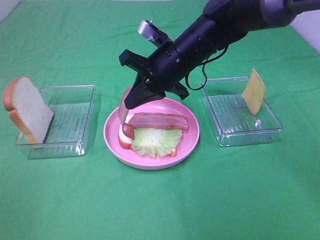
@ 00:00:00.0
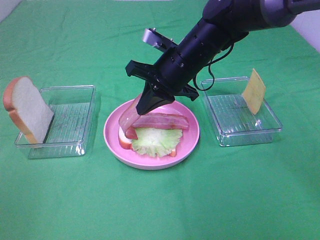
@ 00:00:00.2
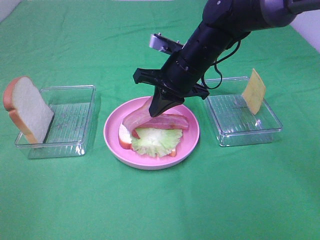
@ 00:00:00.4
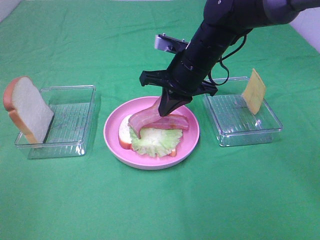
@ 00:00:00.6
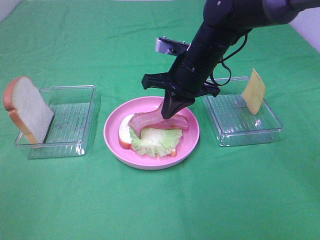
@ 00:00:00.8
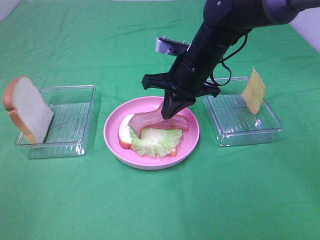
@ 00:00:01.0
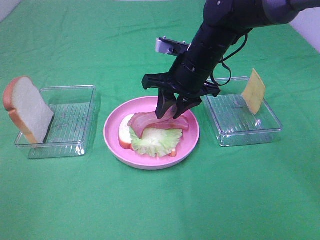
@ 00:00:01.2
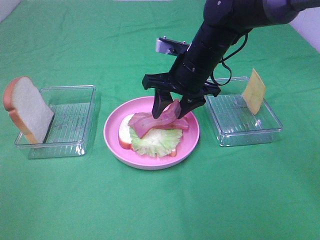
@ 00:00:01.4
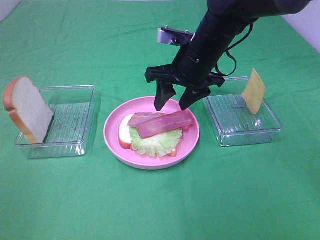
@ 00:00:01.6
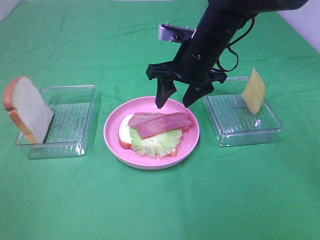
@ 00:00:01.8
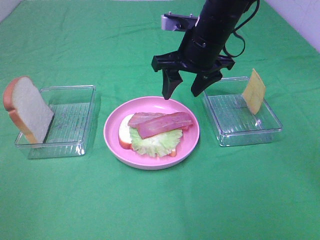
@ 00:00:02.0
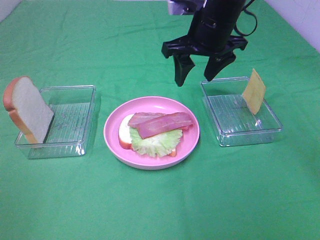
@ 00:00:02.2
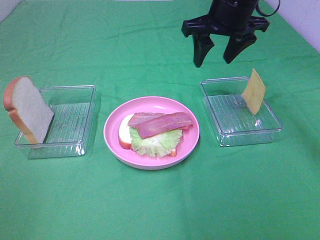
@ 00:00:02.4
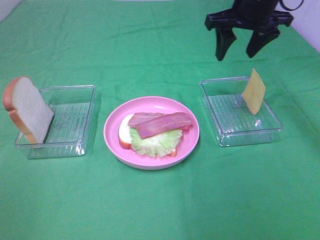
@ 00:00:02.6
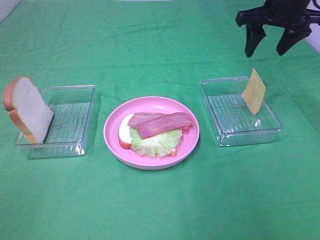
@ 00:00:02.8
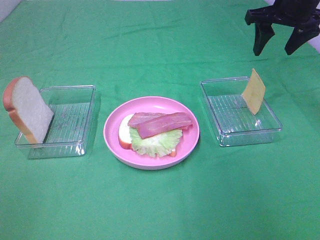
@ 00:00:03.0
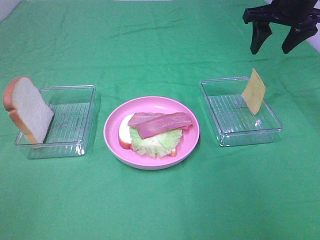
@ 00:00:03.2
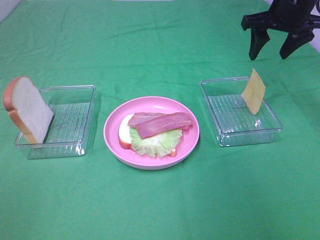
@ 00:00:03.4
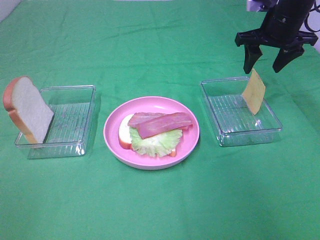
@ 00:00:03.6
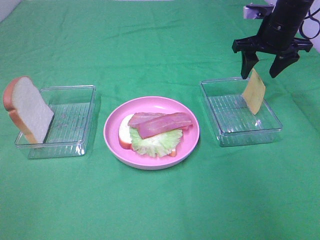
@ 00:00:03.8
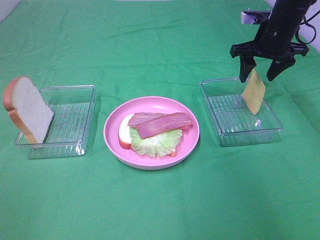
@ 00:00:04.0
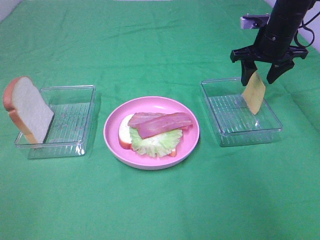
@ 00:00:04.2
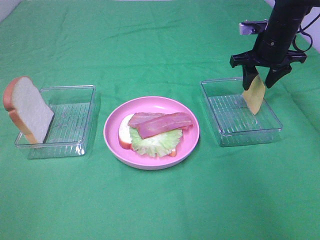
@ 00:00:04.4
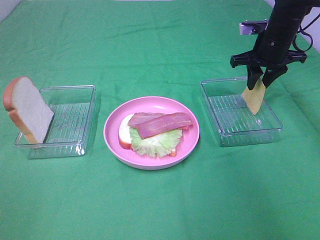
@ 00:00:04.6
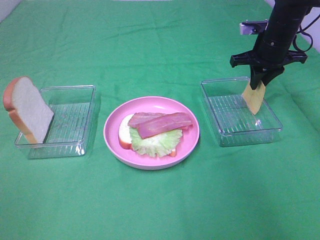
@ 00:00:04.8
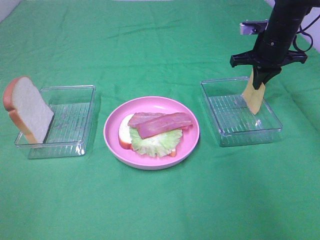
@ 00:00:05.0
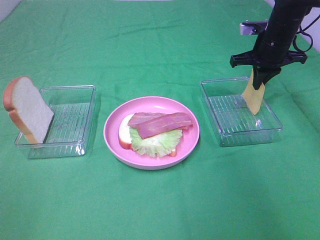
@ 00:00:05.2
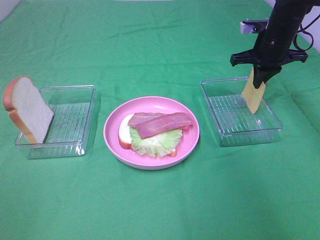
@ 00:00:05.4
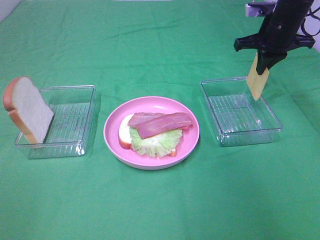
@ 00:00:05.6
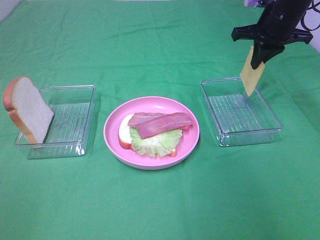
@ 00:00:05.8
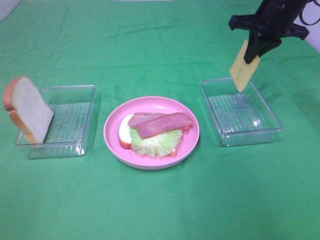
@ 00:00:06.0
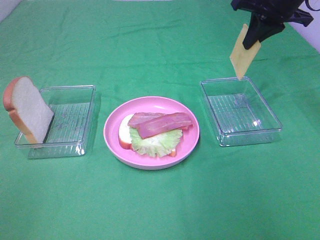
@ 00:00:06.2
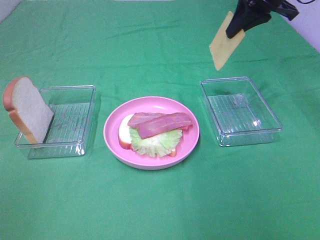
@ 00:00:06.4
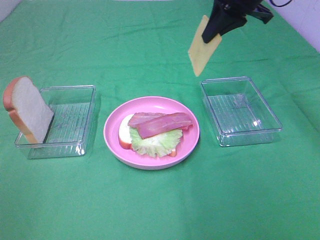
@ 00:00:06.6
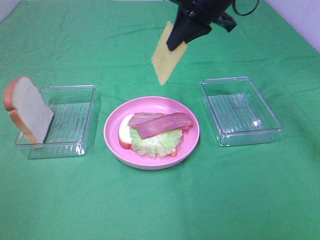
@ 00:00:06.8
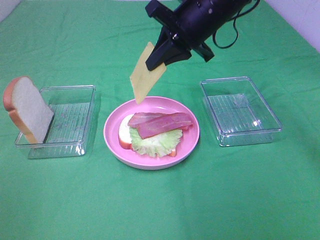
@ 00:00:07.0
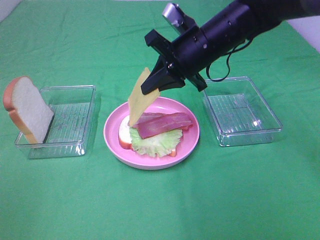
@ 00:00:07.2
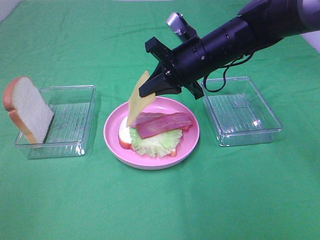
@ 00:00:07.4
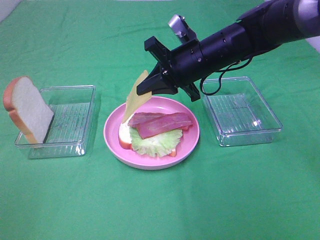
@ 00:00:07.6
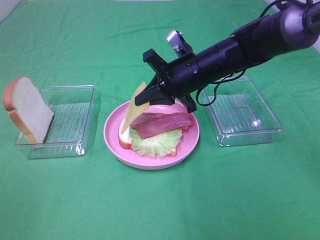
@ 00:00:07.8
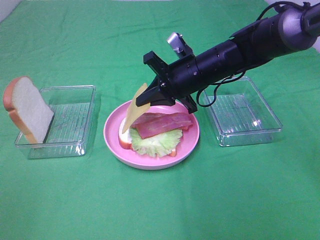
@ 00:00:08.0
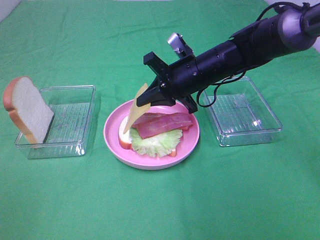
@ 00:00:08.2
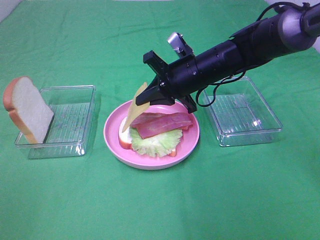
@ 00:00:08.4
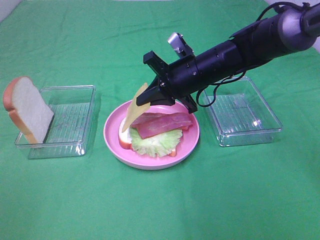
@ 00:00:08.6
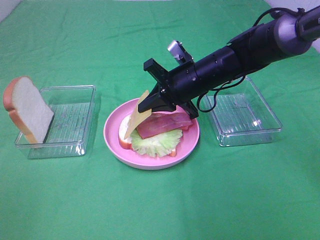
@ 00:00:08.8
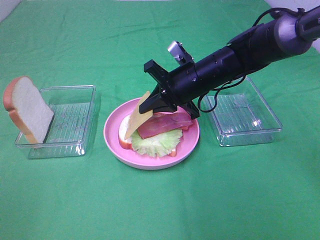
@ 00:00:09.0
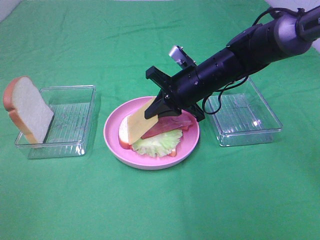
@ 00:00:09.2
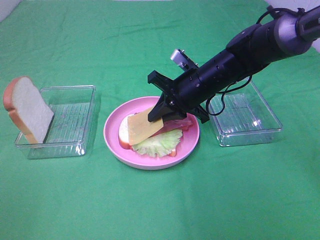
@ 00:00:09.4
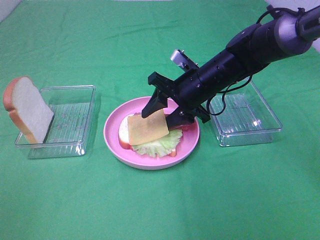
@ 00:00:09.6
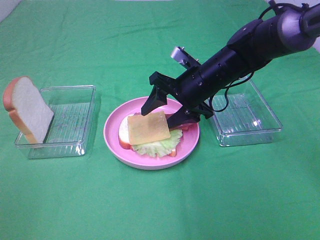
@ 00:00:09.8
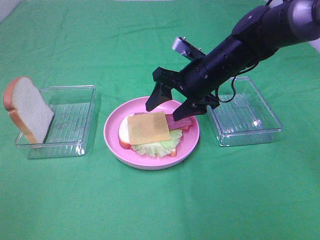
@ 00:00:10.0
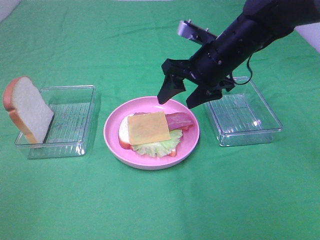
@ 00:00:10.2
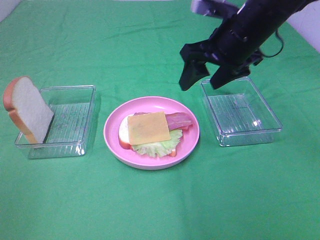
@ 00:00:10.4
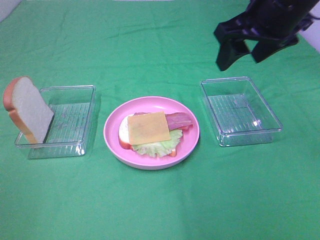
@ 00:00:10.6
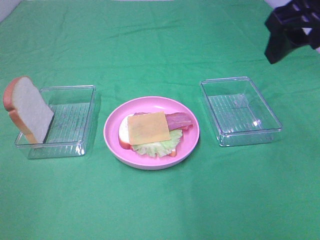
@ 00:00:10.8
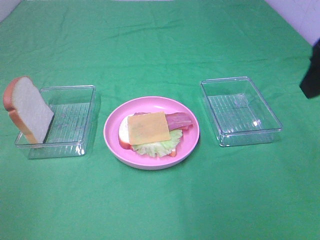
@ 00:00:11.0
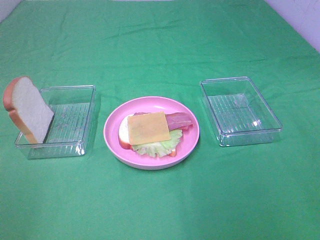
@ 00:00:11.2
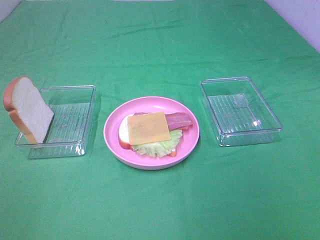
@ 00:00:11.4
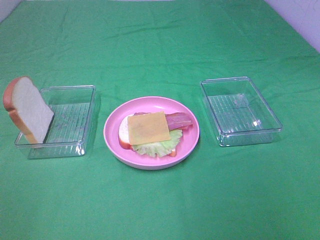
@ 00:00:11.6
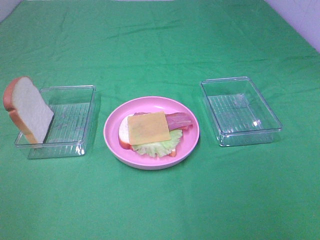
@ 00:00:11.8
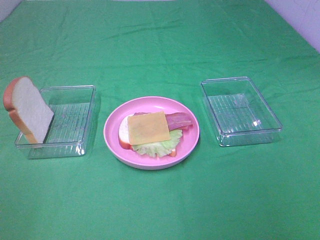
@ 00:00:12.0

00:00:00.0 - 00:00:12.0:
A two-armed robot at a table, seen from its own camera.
Task of the whole recording: Make sandwiches.
Step, 00:00:02.0 - 00:00:05.2: Right hand:grab the cheese slice.
Step, 00:00:05.4 - 00:00:10.2: Right hand:place the cheese slice on top of the bacon.
00:00:00.0 - 00:00:01.6: The right gripper opens up.
00:00:01.6 - 00:00:03.0: The right gripper is displaced to the right and upward by about 20 cm.
00:00:03.0 - 00:00:04.4: The right gripper moves downward, about 10 cm.
00:00:04.4 - 00:00:06.0: The right gripper goes roughly 10 cm upward, and closes its fingers.
00:00:06.0 - 00:00:07.6: The right gripper goes approximately 20 cm to the left, downward and backward.
00:00:07.6 - 00:00:09.0: The grippers stay close to where they were, moving slightly.
00:00:09.0 - 00:00:10.4: The right gripper is displaced upward and to the right by about 15 cm, and opens.
00:00:10.4 - 00:00:12.0: The right gripper travels backward and to the right by approximately 40 cm.

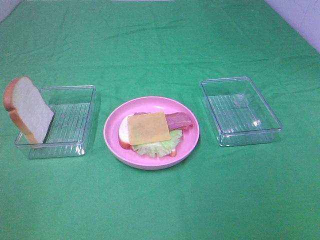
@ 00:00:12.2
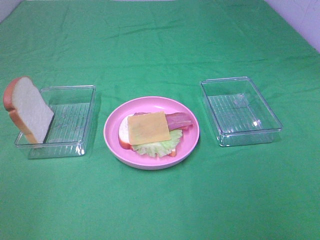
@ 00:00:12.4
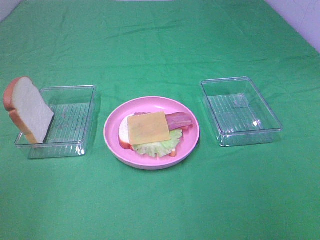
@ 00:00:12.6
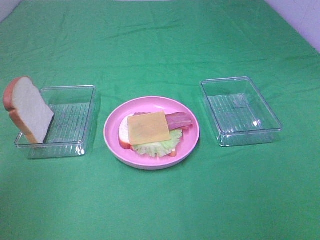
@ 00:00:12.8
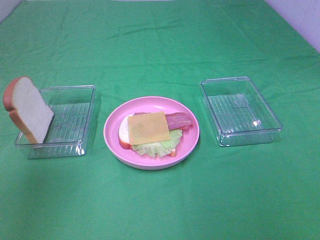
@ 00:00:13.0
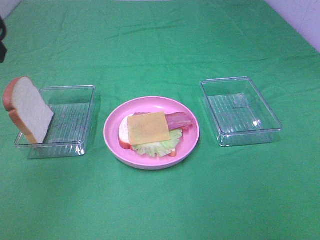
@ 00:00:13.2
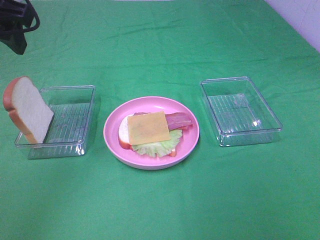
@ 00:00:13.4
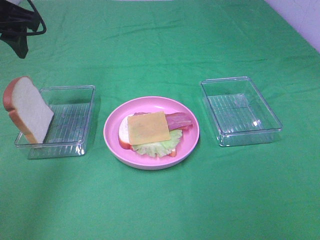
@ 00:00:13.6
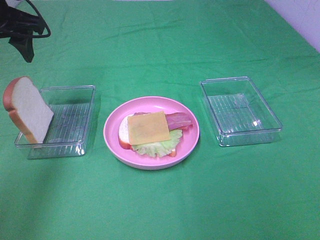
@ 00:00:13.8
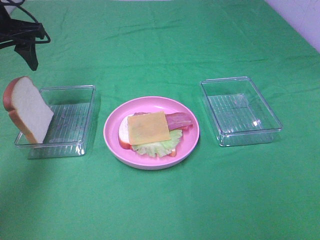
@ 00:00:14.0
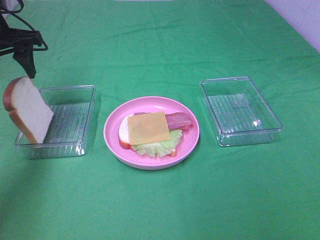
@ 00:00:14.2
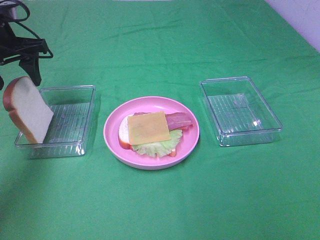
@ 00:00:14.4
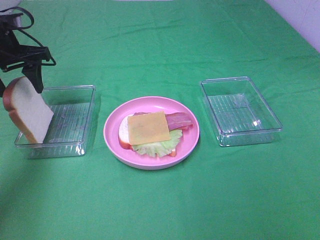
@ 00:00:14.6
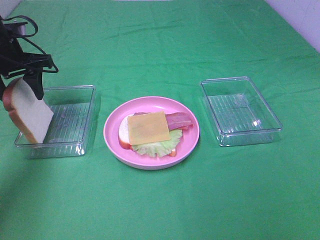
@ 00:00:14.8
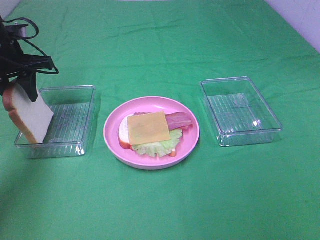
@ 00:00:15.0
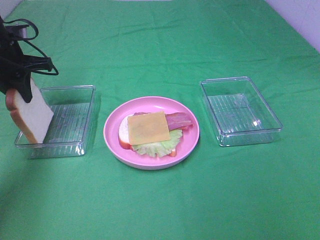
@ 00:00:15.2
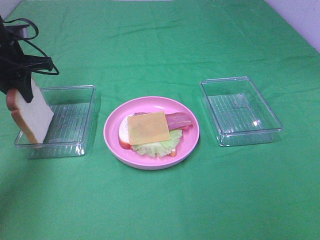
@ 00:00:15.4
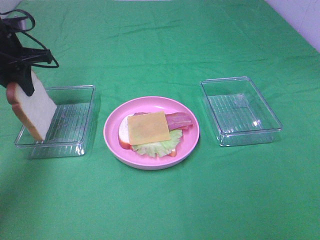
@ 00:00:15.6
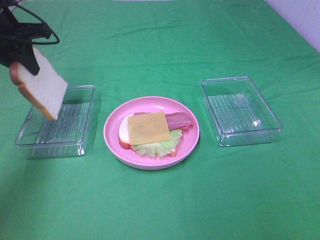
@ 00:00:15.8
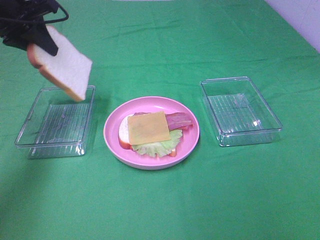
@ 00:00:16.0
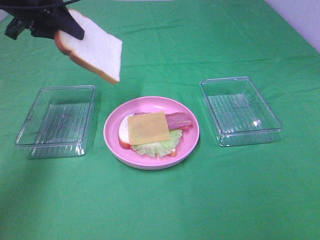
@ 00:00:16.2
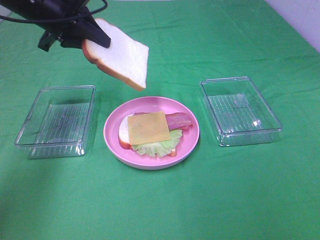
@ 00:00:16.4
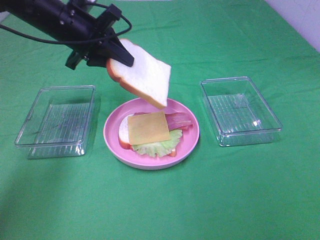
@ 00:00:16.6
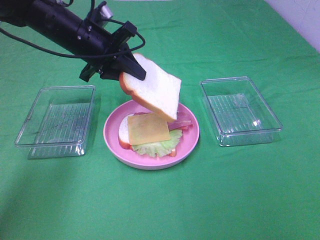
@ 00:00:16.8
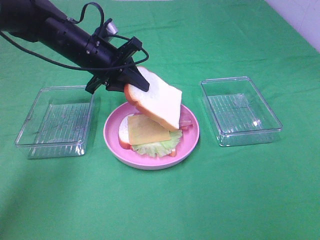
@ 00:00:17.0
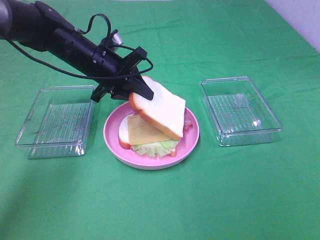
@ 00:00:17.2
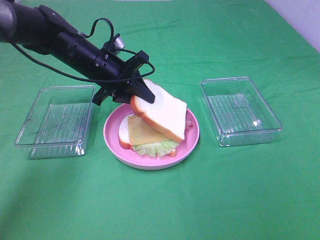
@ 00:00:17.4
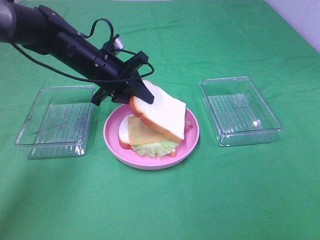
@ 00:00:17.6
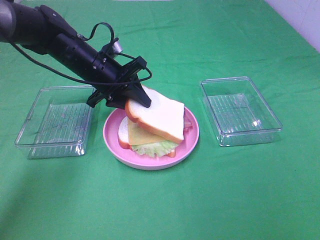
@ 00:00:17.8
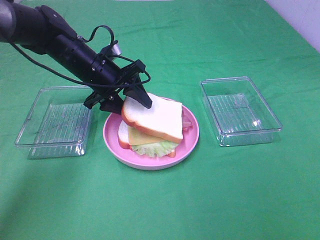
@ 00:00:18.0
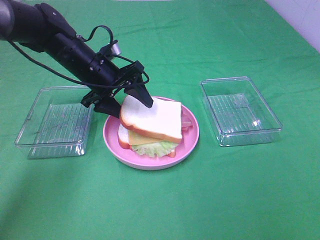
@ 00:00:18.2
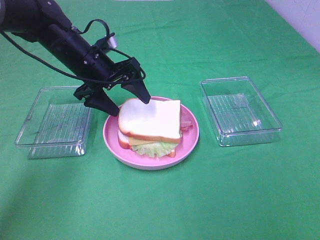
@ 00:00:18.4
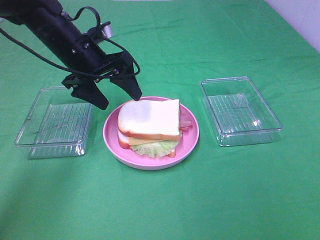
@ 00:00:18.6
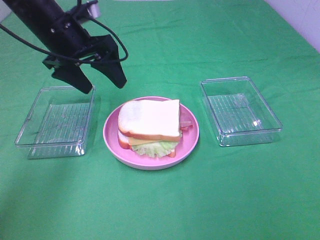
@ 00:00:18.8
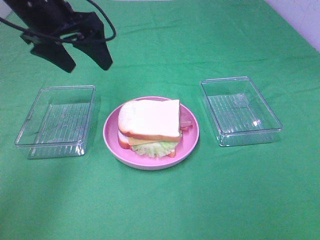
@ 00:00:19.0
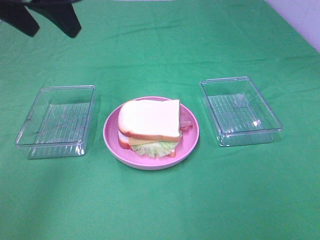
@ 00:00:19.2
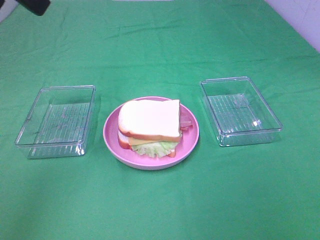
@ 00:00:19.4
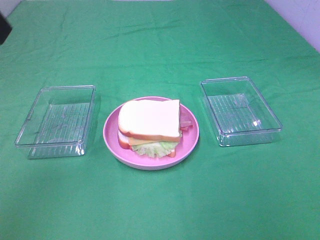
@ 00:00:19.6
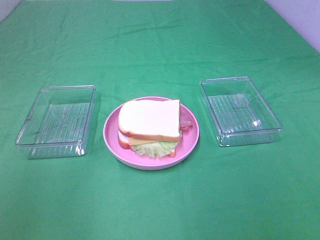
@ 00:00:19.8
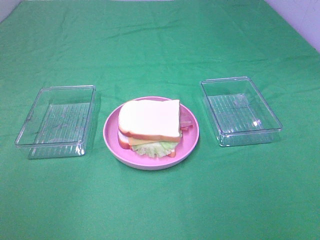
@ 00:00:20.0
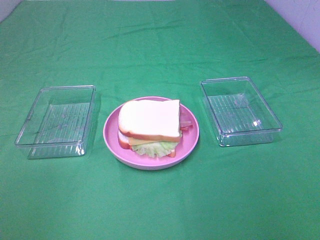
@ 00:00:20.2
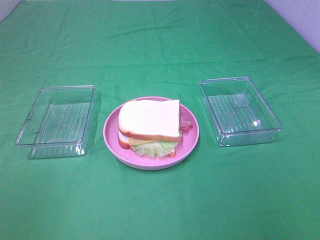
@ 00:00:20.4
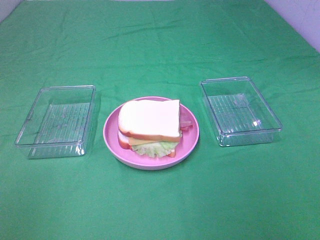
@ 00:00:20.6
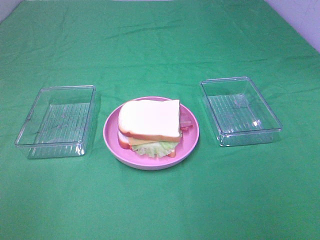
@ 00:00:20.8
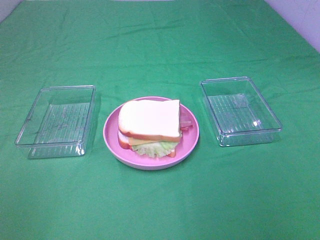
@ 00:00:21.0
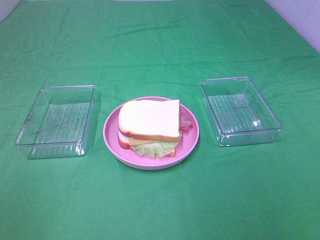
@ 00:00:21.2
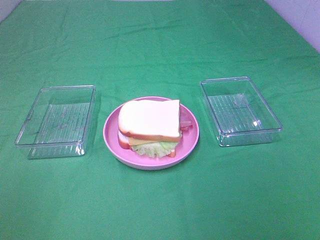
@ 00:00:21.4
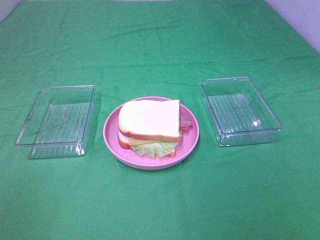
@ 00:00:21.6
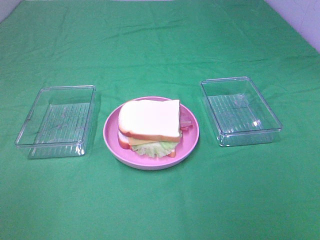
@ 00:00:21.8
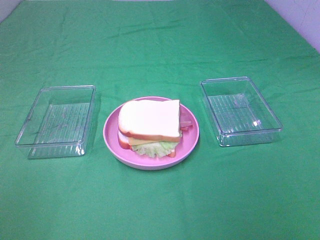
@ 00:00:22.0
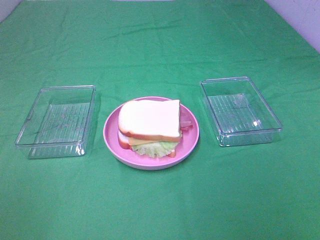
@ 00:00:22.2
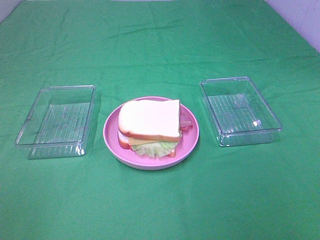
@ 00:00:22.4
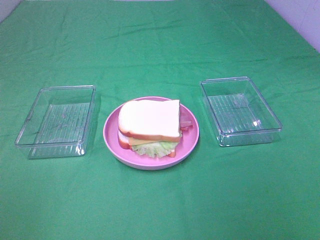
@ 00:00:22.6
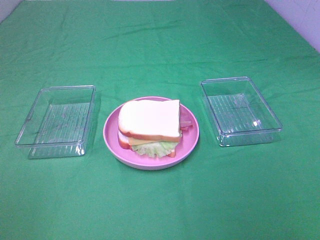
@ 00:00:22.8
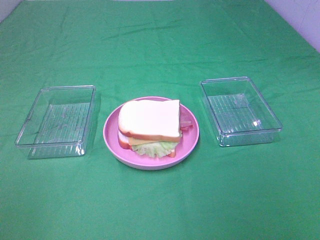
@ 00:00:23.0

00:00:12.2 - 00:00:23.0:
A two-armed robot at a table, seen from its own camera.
Task of the whole recording: Make sandwiches.
Step, 00:00:12.2 - 00:00:15.6: Left hand:grab the bread slice.
Step, 00:00:15.8 - 00:00:18.6: Left hand:place the bread slice on the cheese slice.
00:00:12.2 - 00:00:13.8: The left gripper moves forward, about 40 cm.
00:00:13.8 - 00:00:15.2: The left gripper heads downward, covering roughly 10 cm, and closes.
00:00:15.2 - 00:00:16.8: The left gripper moves to the right, about 15 cm.
00:00:16.8 - 00:00:18.4: The left gripper opens up.
00:00:18.4 - 00:00:20.0: The left gripper heads backward, upward and to the left, covering some 40 cm.
